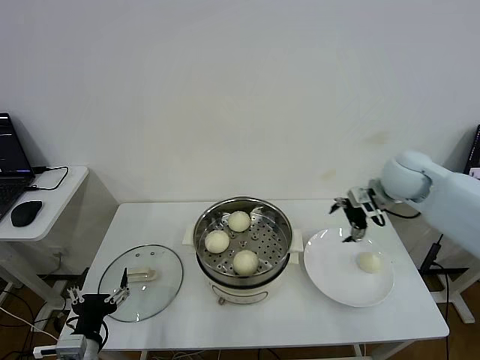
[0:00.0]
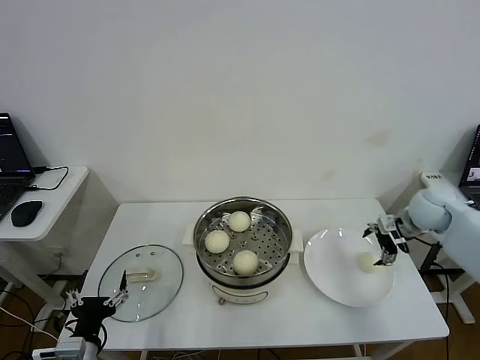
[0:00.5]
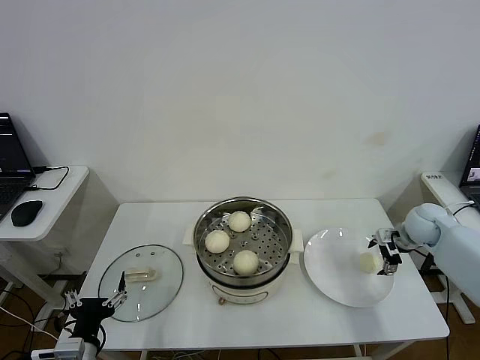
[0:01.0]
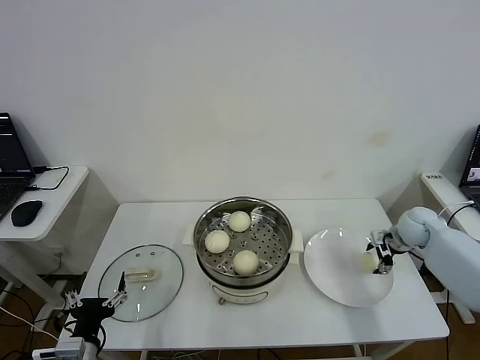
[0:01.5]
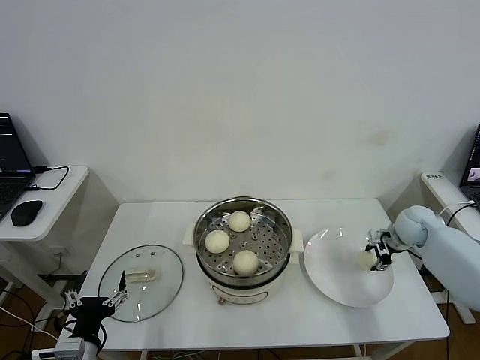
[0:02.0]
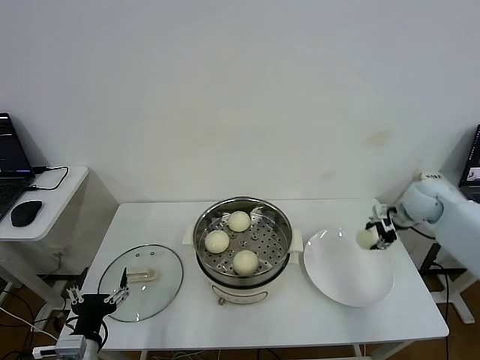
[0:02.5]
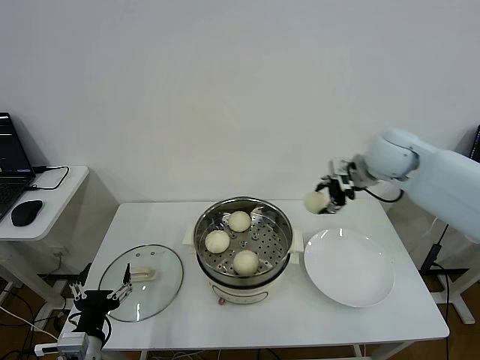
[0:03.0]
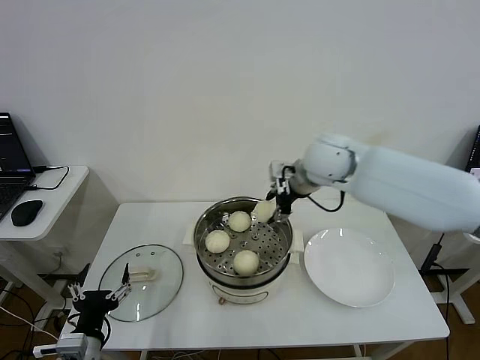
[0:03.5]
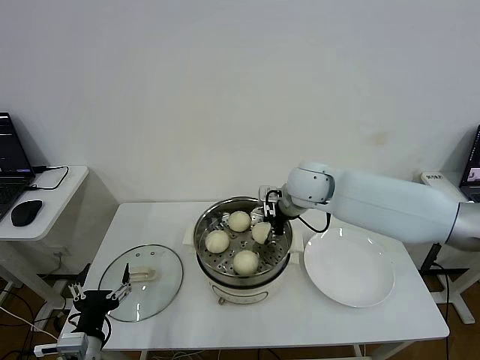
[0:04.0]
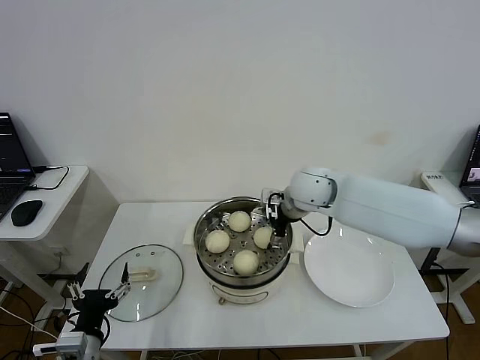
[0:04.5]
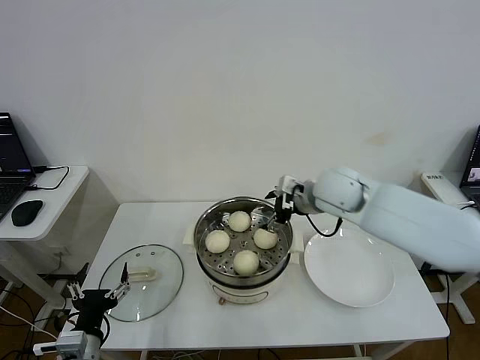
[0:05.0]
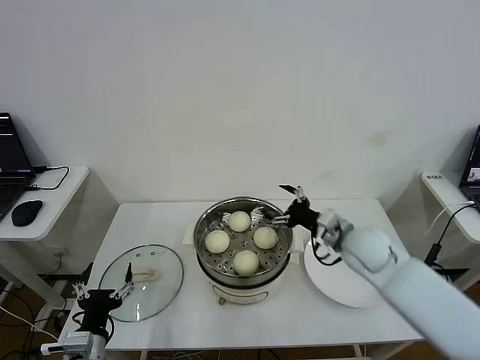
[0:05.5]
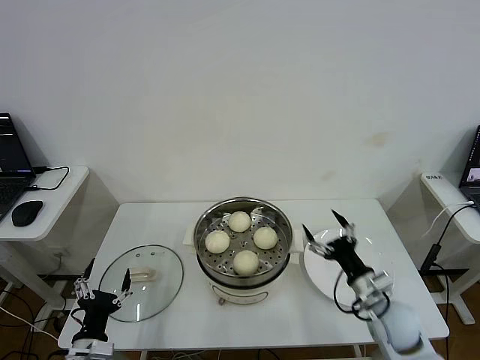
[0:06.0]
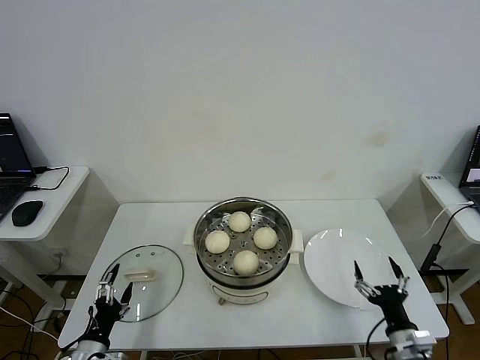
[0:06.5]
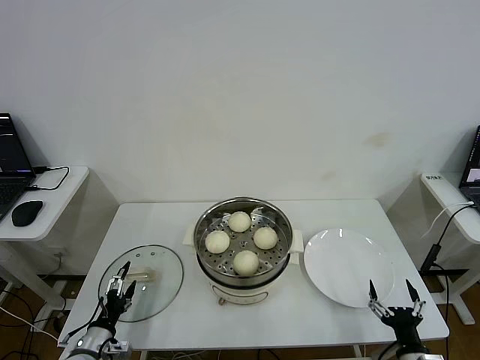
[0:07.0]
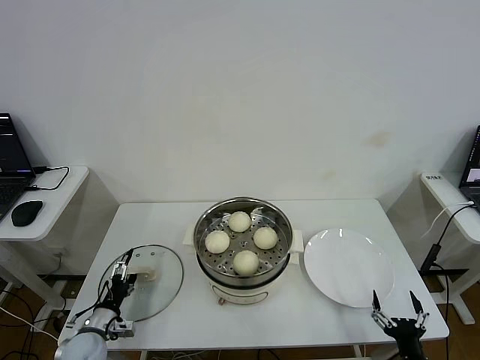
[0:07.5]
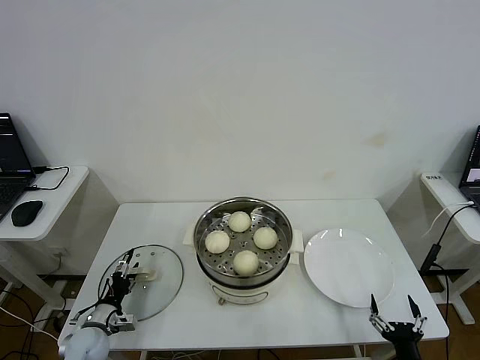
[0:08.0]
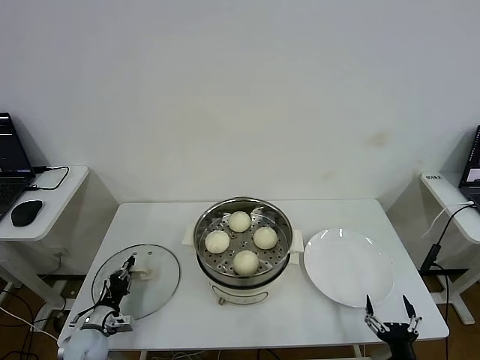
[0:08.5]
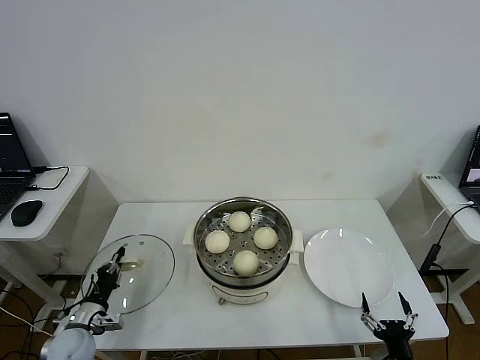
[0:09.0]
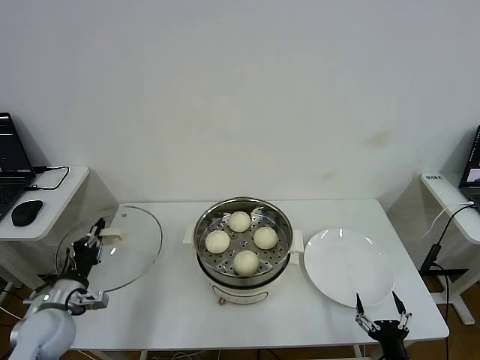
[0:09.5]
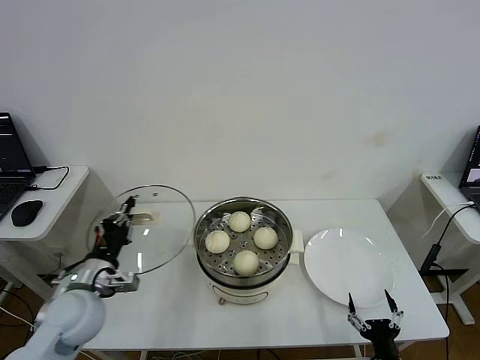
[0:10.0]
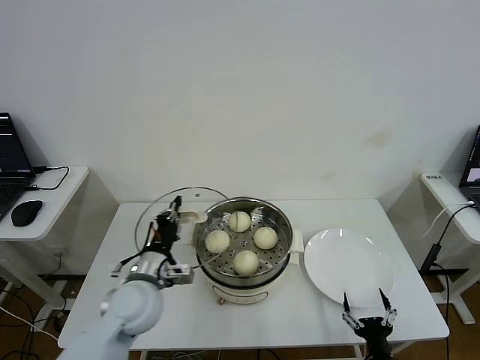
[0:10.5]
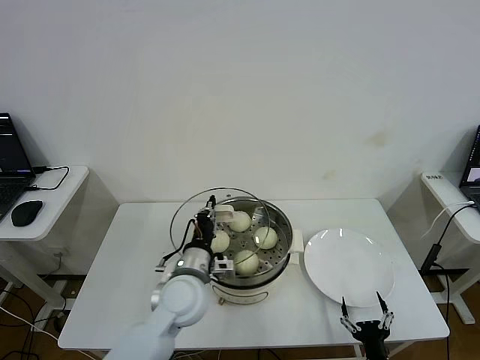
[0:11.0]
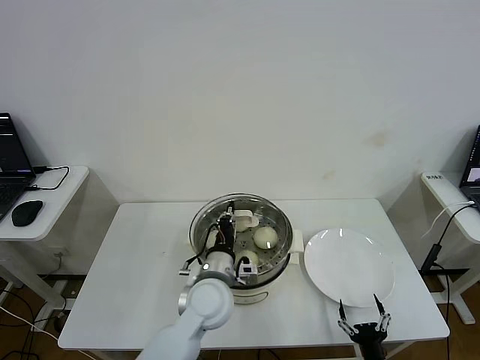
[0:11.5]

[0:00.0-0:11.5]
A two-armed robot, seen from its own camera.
Step, 0:00.0 to 0:02.0: Grasp the baozi in the plate with right gripper.
Step, 0:02.5 to 0:04.5: Place the baozi on the steamer with right gripper.
Step, 0:05.0 to 0:08.5: Grasp the pot lid with left gripper.
0:00.0 to 0:02.0: The right gripper is displaced downward and to the right by approximately 20 cm, and closes up.
0:02.0 to 0:04.0: The right gripper moves to the left and upward, approximately 35 cm.
0:04.0 to 0:06.0: The right gripper goes some 30 cm backward, downward and to the right, and opens up.
0:06.0 to 0:07.5: The right gripper heads backward and downward, covering some 20 cm. The left gripper shifts approximately 15 cm forward, downward and to the left.
0:07.5 to 0:09.5: The left gripper is displaced upward by some 10 cm, and closes.
0:09.5 to 0:11.5: The right gripper changes place by some 5 cm. The left gripper heads to the right, covering about 30 cm.

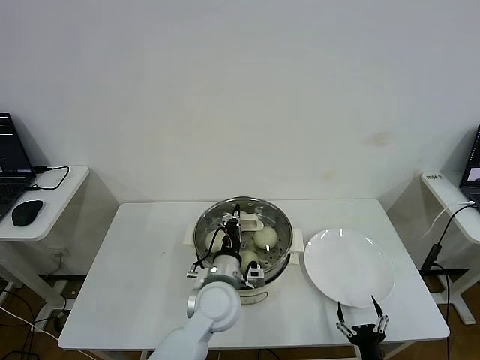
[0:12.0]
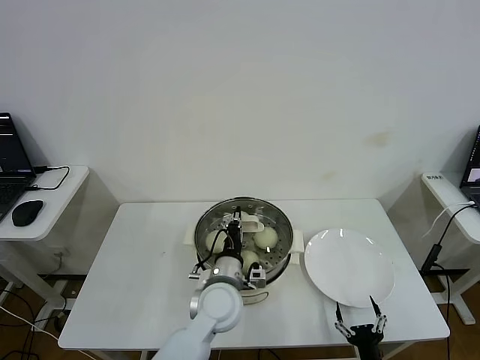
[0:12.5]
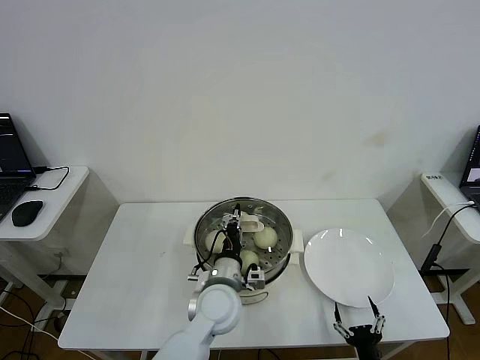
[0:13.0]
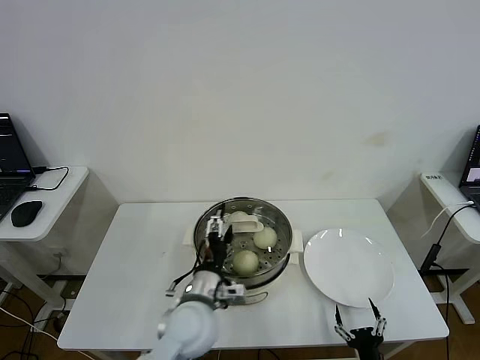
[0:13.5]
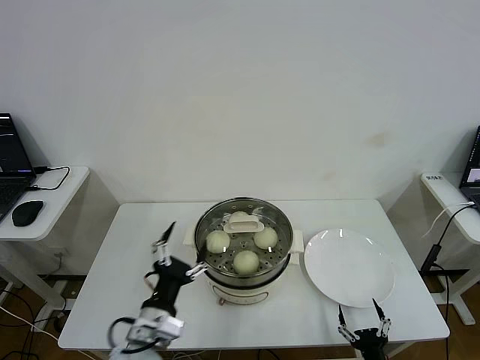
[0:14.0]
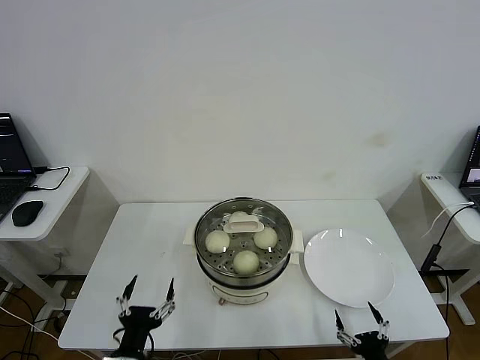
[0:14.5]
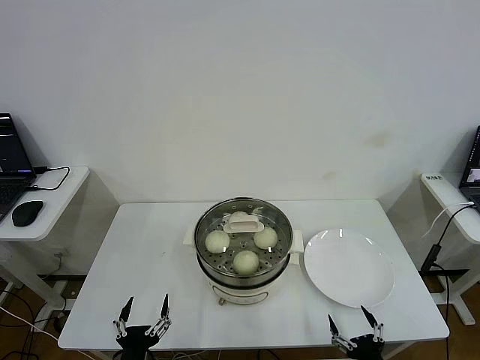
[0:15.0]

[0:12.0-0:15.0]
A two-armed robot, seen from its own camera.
0:12.0 to 0:13.5: The left gripper opens up.
0:13.5 to 0:15.0: The left gripper heads backward, to the left and downward, covering some 25 cm, while the right gripper moves upward, about 5 cm.
